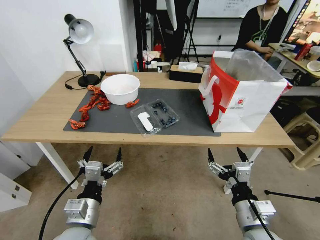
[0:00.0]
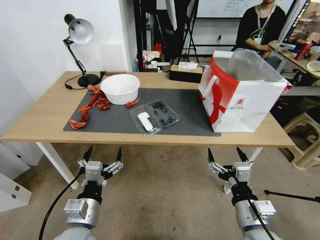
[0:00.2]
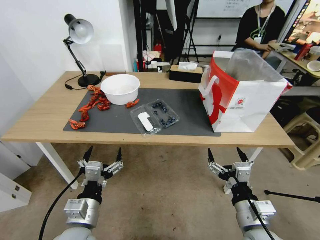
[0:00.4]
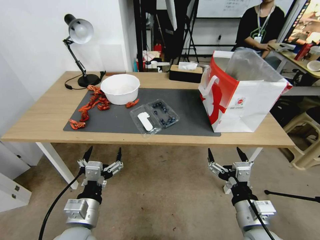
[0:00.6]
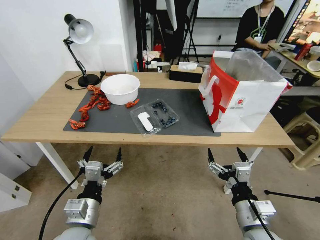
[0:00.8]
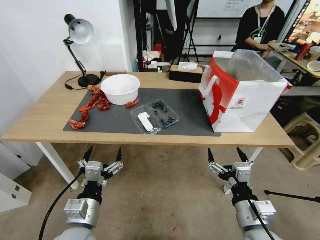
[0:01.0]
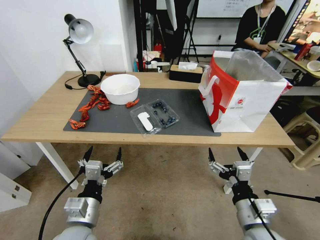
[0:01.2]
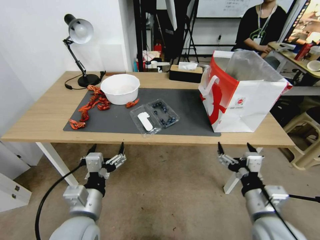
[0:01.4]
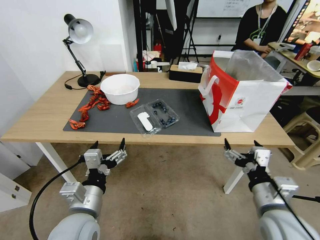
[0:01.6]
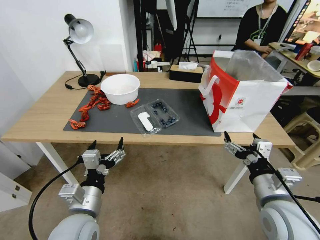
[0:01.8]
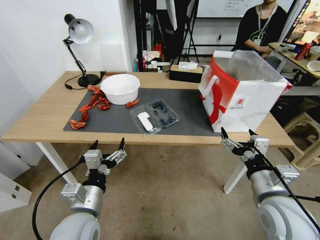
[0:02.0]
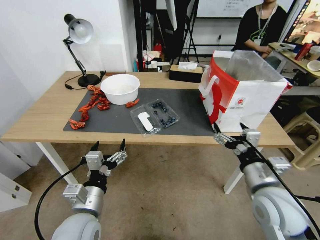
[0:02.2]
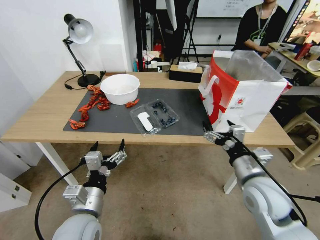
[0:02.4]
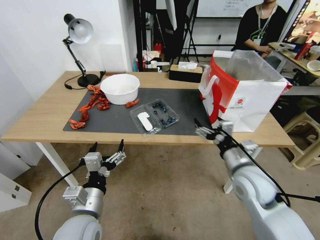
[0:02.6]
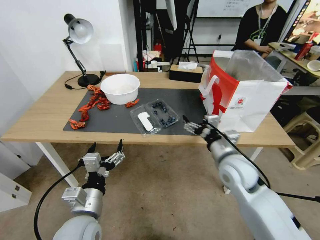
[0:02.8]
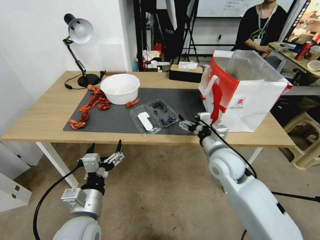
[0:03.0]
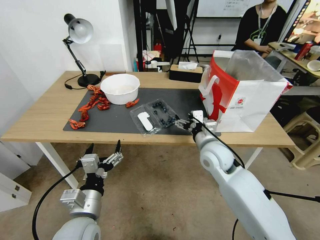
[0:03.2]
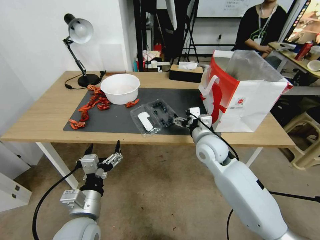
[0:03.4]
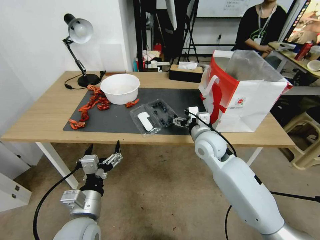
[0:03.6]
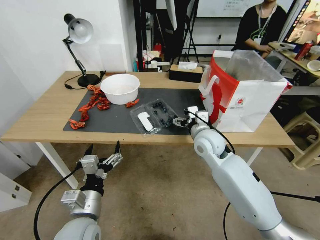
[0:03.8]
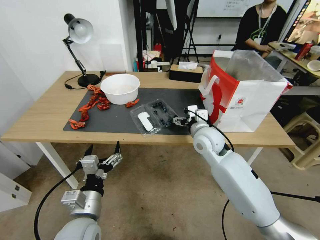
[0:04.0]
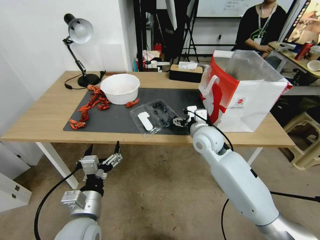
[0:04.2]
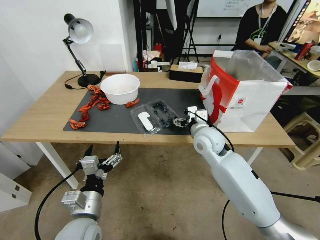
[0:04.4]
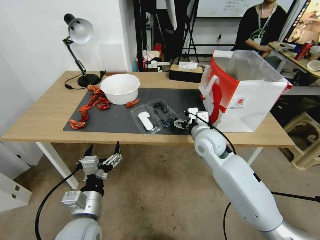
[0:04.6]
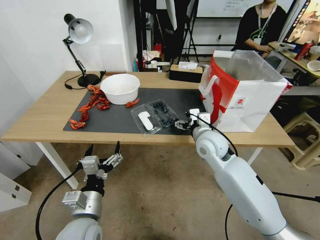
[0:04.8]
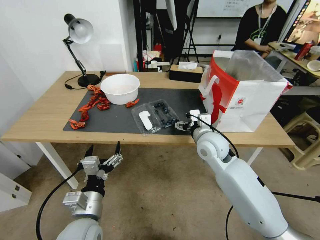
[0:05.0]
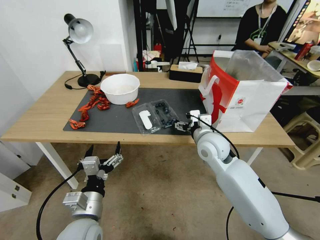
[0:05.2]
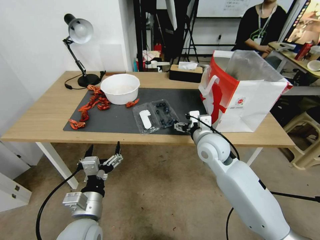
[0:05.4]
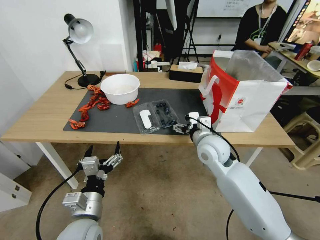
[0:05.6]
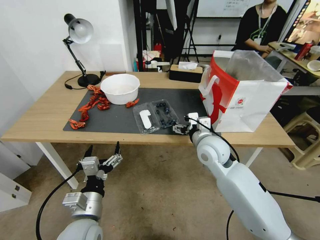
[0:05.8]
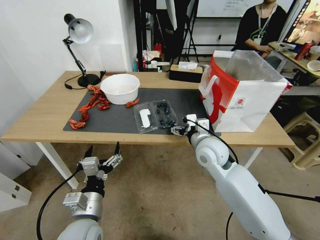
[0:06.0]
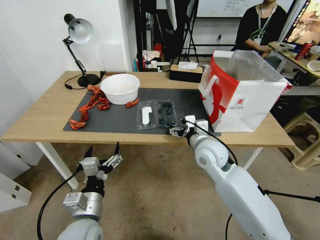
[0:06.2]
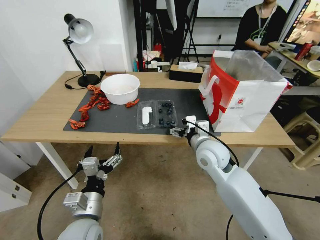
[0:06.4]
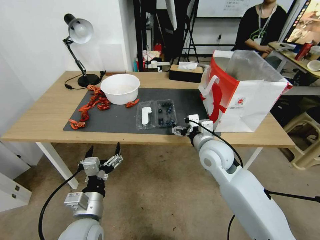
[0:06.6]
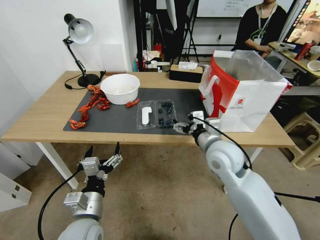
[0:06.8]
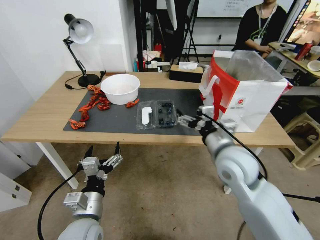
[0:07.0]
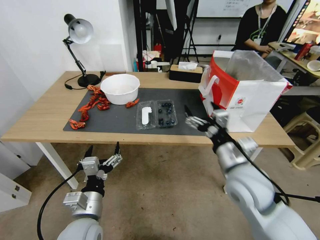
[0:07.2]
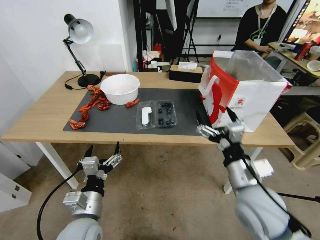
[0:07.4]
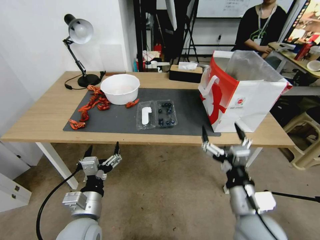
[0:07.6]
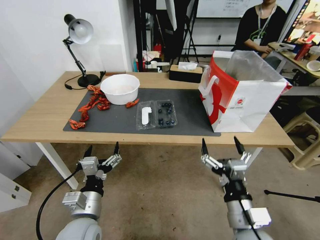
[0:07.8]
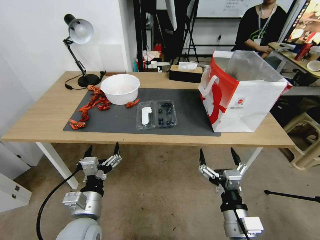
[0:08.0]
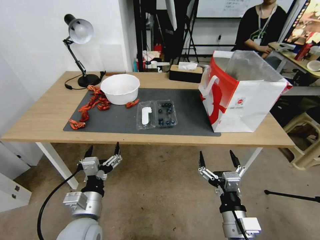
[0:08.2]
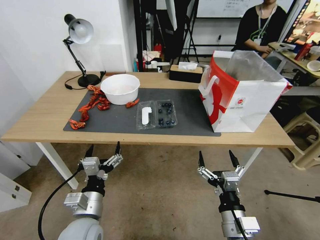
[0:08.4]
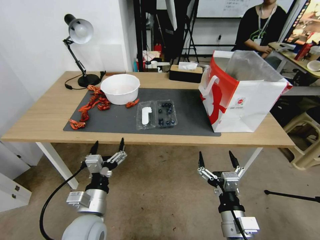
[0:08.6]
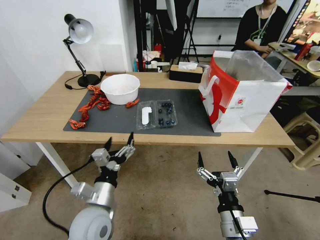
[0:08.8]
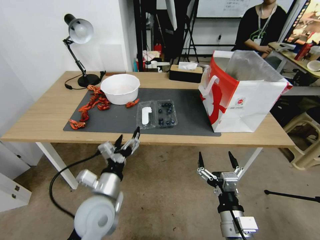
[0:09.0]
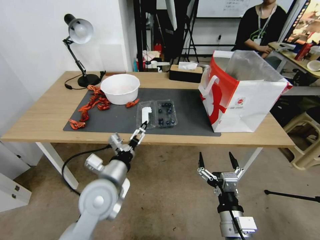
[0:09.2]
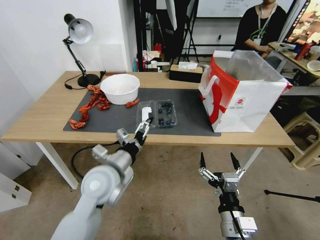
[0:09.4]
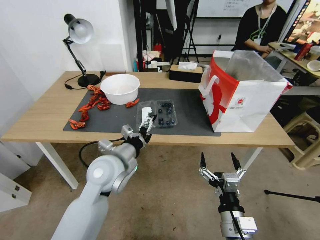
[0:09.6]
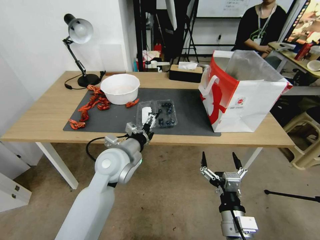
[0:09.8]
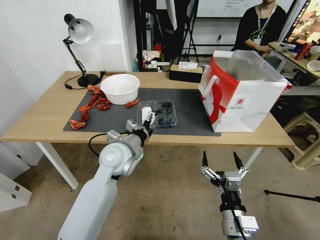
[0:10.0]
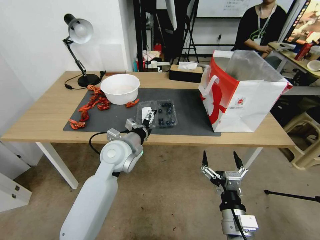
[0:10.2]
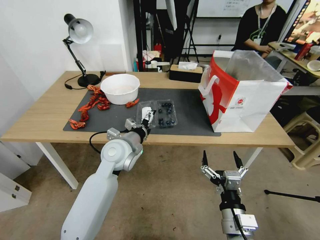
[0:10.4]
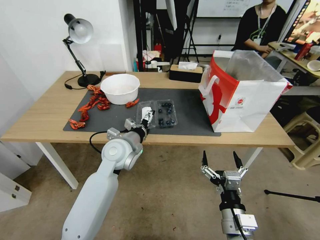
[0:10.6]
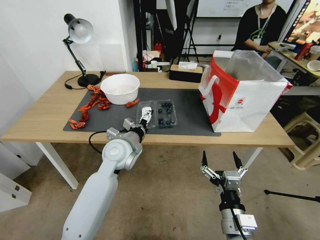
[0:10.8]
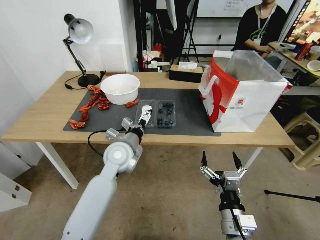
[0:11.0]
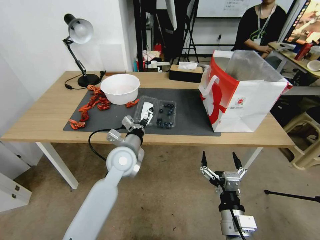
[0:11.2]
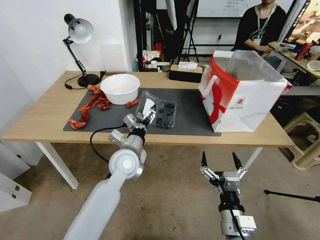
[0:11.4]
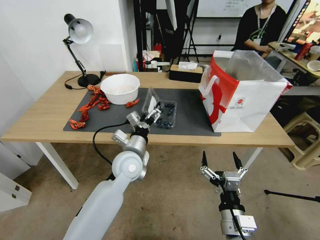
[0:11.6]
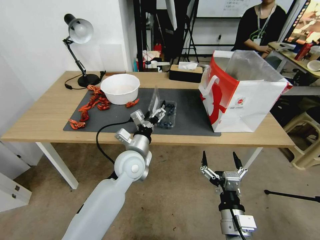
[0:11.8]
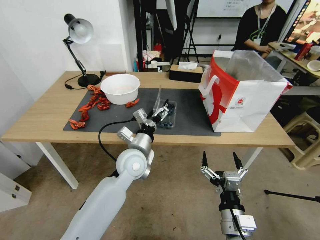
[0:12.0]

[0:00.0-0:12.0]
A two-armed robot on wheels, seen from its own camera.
Task of the whole recording: Close the takeout container lid, then place the container into the takeout bag.
0:01.6 to 0:03.0: The right gripper is displaced forward and to the left by roughly 20 cm.
0:03.0 to 0:04.4: The right gripper moves forward, approximately 5 cm.
0:04.4 to 0:06.0: The grippers stay close to where they were, moving slightly.
0:06.0 to 0:07.6: The right gripper travels backward by roughly 20 cm.
0:07.6 to 0:09.0: The right gripper goes roughly 10 cm downward and backward; the left gripper moves about 5 cm.
0:09.0 to 0:10.4: The left gripper heads forward, covering approximately 15 cm.
0:10.4 to 0:12.0: The left gripper ends up some 5 cm from where it was.

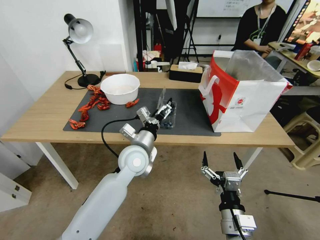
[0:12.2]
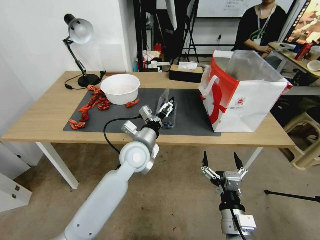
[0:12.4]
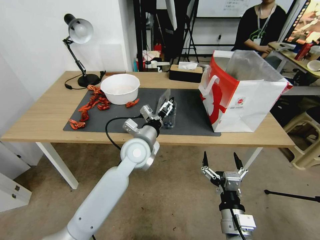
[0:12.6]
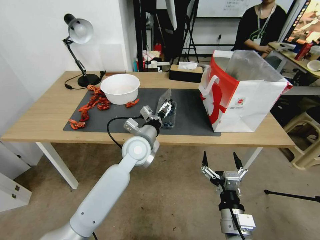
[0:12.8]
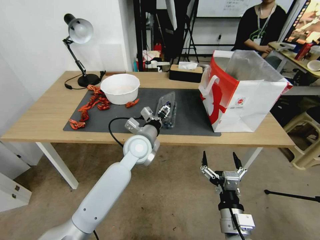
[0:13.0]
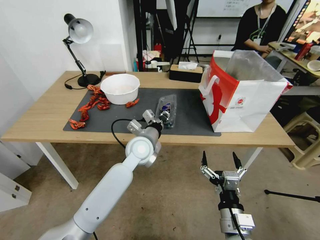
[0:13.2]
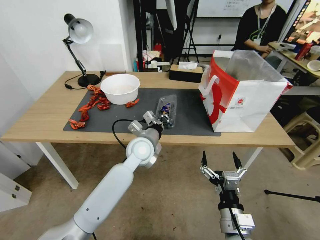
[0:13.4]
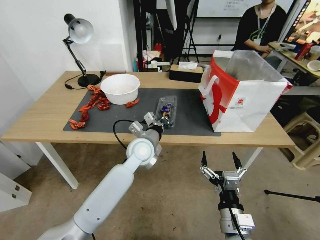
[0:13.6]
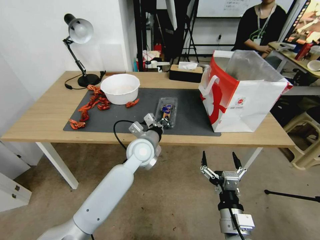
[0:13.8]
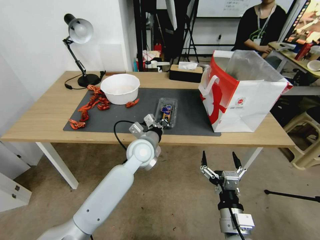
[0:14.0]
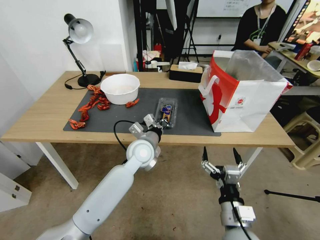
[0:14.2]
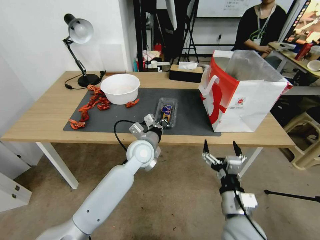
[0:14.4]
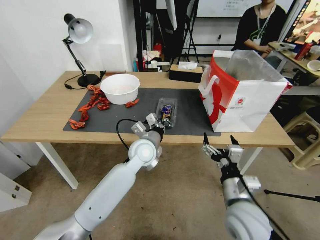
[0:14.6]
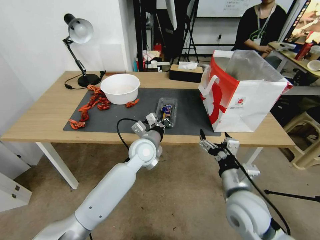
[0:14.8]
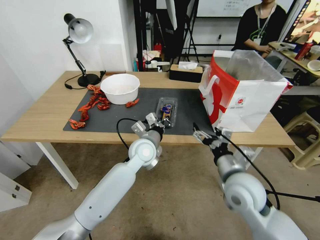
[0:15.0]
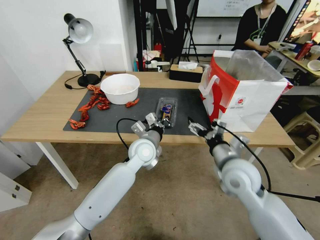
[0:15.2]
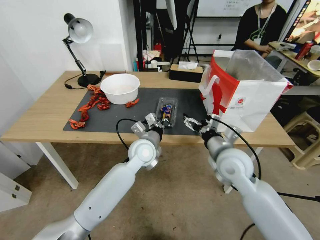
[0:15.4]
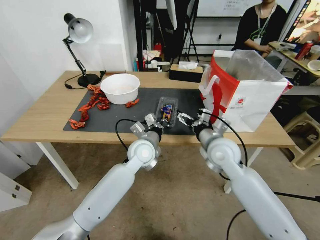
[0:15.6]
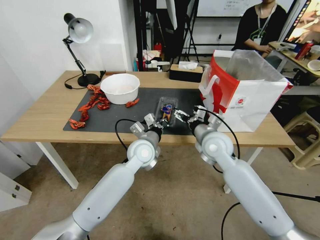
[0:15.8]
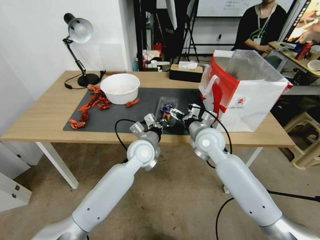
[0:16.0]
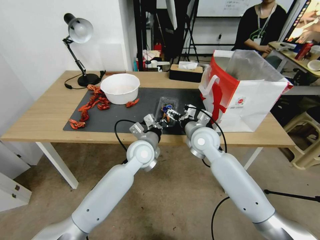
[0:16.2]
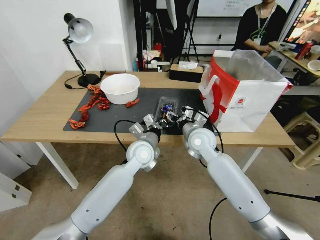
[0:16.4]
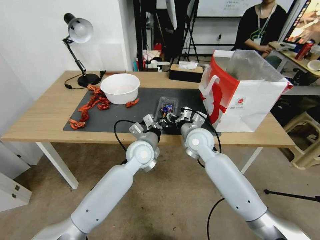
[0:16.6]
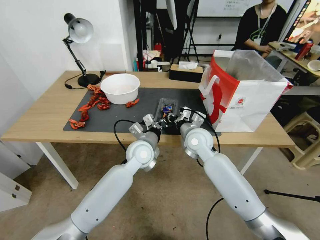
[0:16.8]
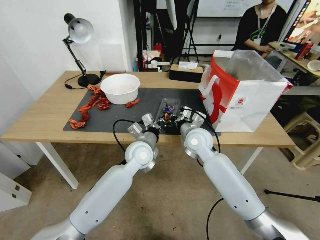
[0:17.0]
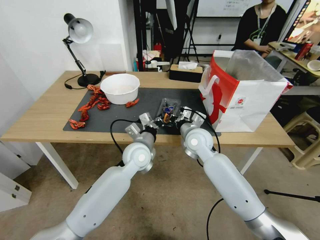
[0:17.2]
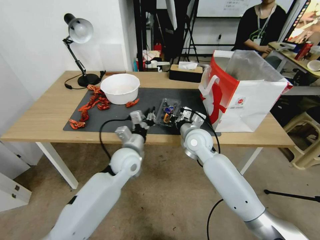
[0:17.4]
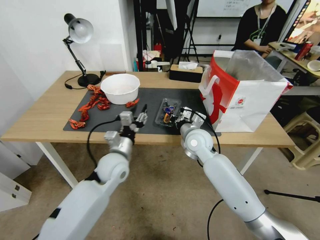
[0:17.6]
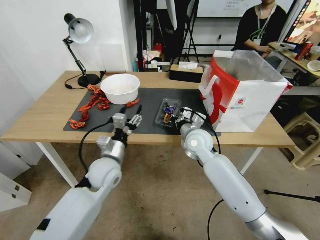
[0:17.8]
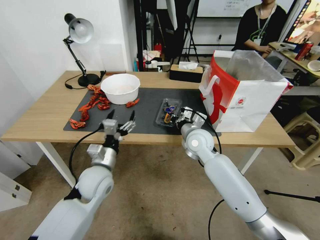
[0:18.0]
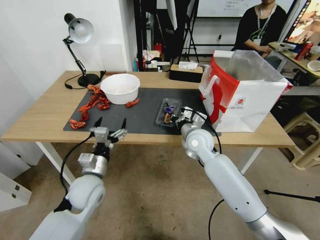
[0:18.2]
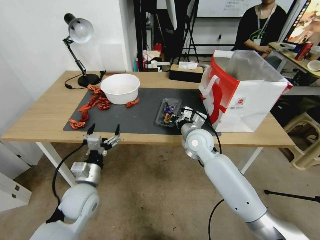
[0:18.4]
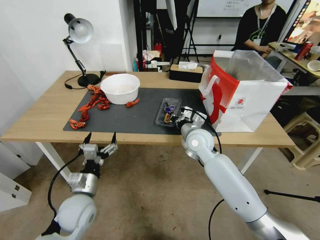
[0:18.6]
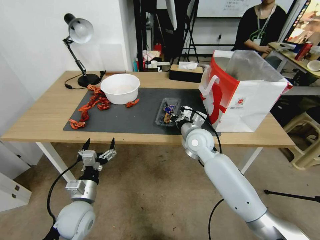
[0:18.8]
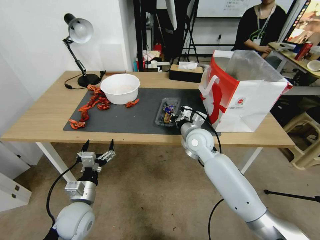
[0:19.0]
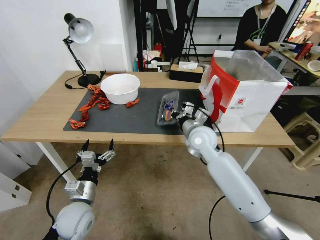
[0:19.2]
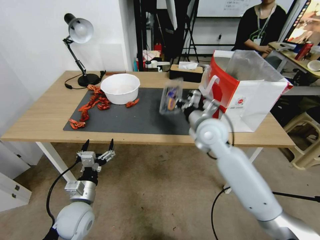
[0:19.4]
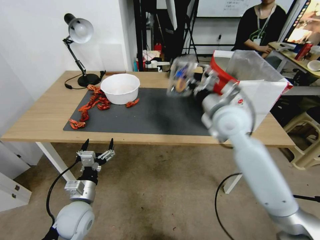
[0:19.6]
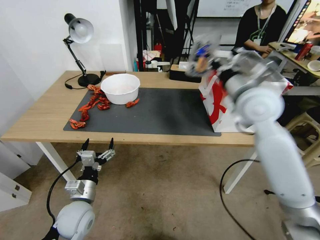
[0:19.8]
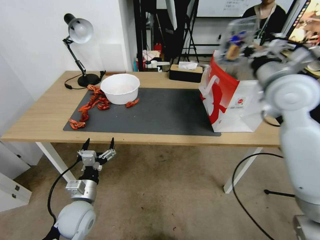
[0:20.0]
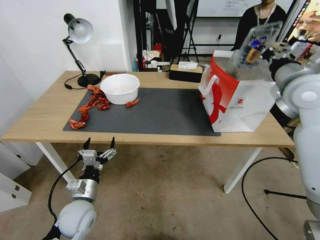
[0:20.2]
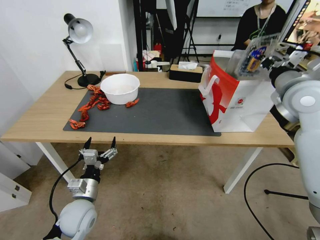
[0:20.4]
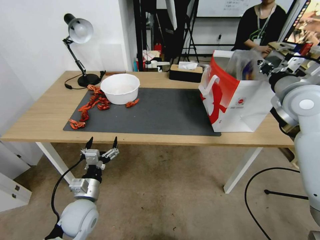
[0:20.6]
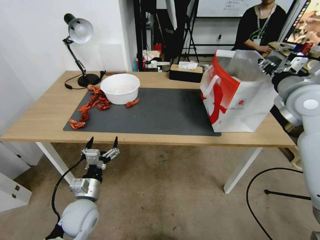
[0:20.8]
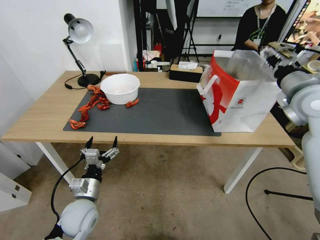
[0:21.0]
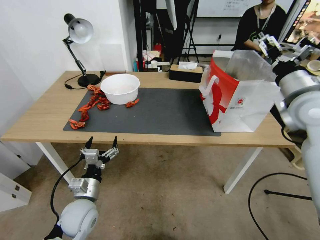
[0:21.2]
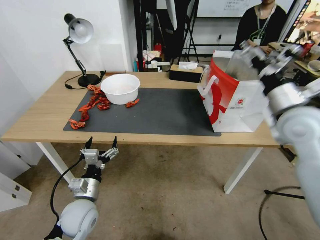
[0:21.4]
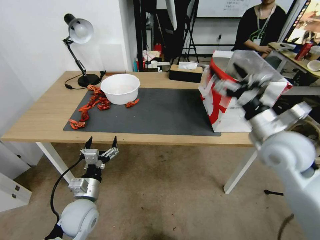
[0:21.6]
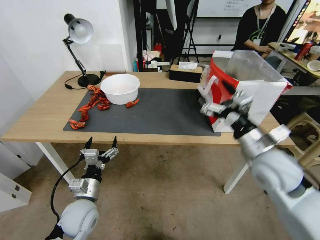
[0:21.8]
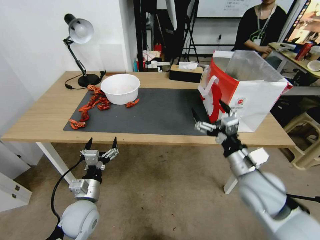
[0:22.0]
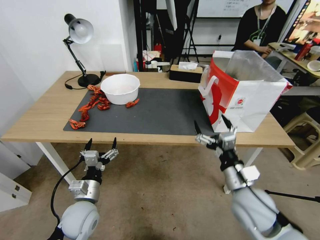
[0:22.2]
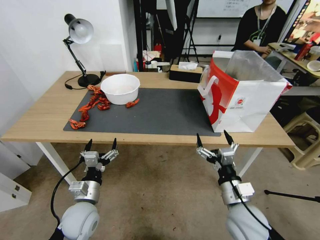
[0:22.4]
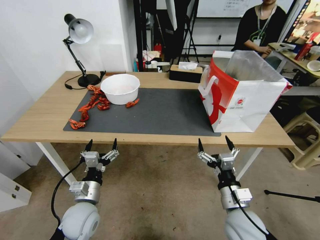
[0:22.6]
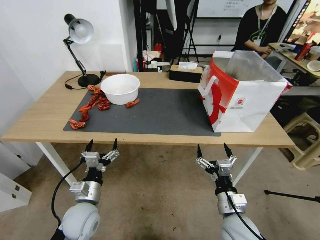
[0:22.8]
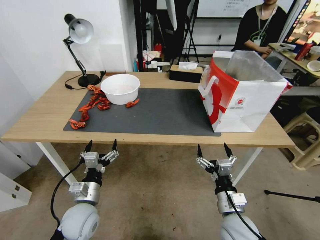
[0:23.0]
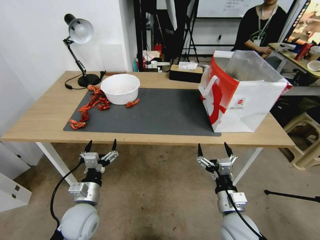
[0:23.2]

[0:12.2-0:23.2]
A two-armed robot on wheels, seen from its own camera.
Task of the whole recording: Close the takeout container lid, then place the container into the takeout bag.
0:12.2 to 0:13.8: The left gripper closes up.
0:13.8 to 0:15.4: The right gripper moves forward and upward, some 25 cm.
0:15.4 to 0:17.0: The right gripper moves forward and to the left, about 10 cm, and closes its fingers.
0:17.0 to 0:18.4: The left gripper shifts approximately 20 cm to the left and backward, and opens its fingers.
0:18.4 to 0:20.0: The left gripper shifts by some 5 cm. The right gripper moves upward and to the right, about 30 cm.
0:20.0 to 0:21.6: The right gripper heads downward and backward, covering about 15 cm, and opens its fingers.
0:21.6 to 0:23.2: The right gripper is displaced downward and backward by approximately 25 cm.
